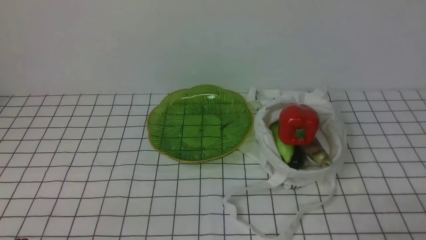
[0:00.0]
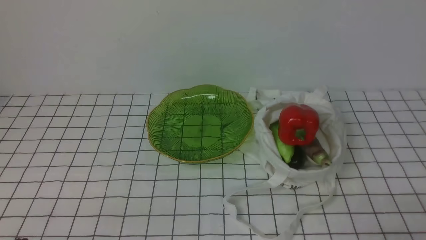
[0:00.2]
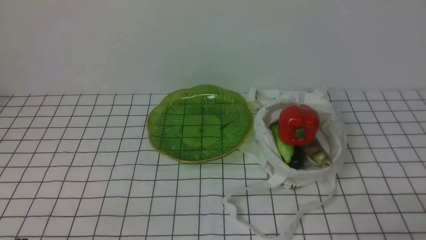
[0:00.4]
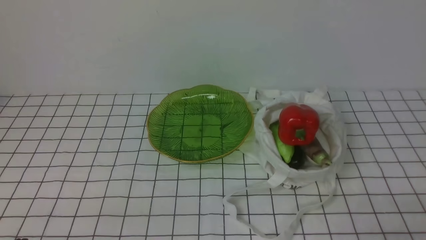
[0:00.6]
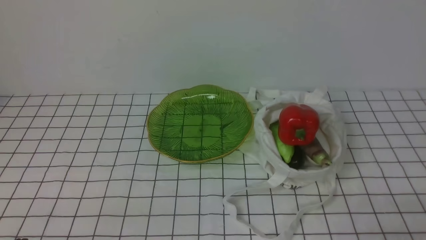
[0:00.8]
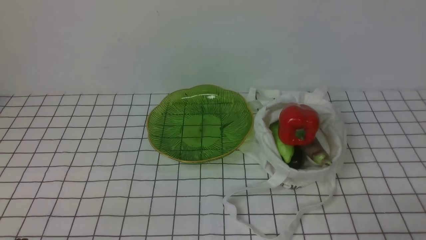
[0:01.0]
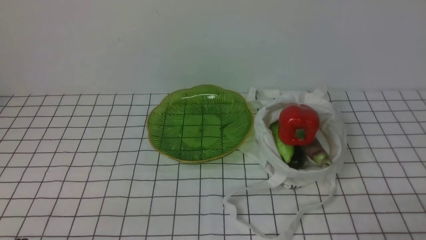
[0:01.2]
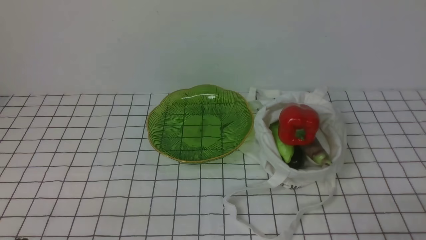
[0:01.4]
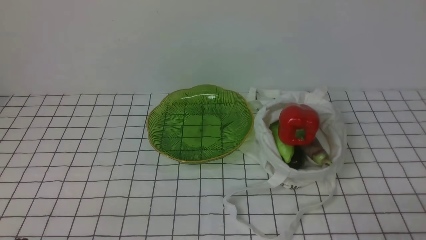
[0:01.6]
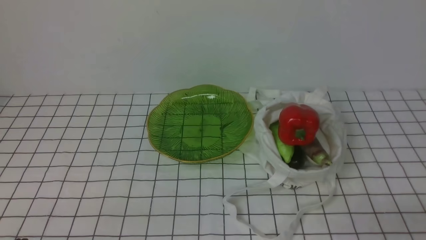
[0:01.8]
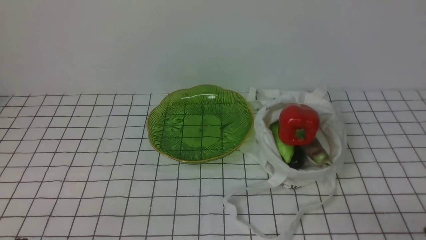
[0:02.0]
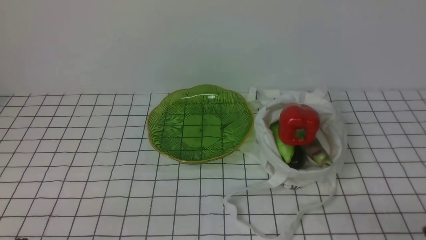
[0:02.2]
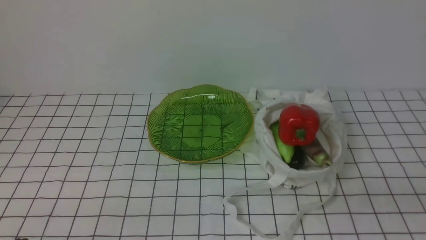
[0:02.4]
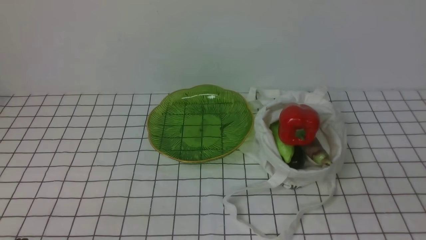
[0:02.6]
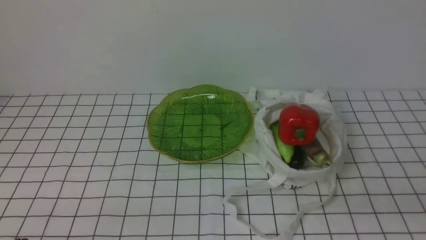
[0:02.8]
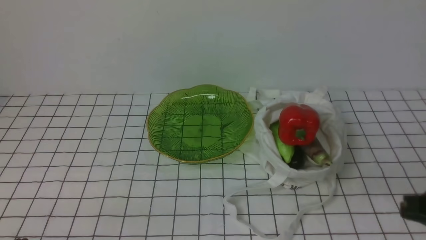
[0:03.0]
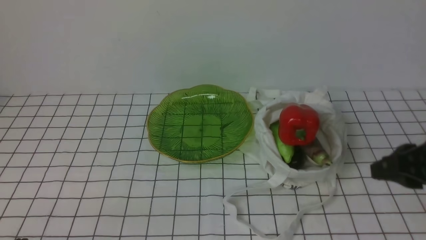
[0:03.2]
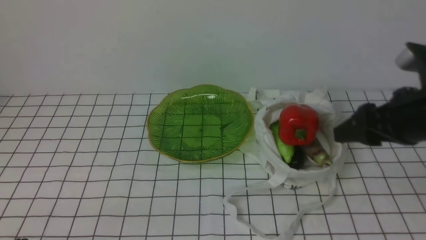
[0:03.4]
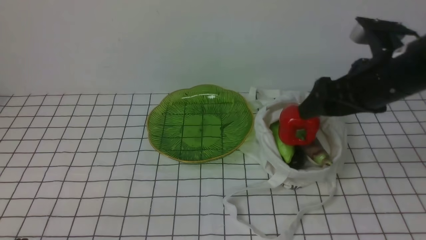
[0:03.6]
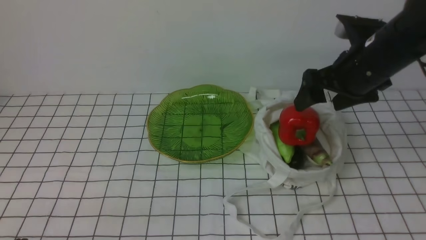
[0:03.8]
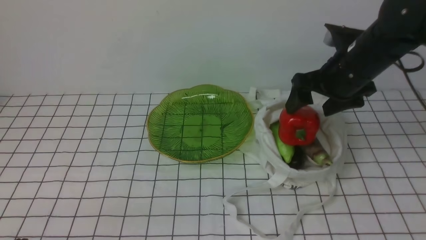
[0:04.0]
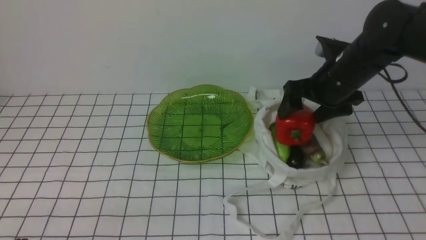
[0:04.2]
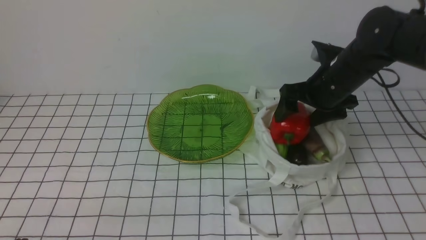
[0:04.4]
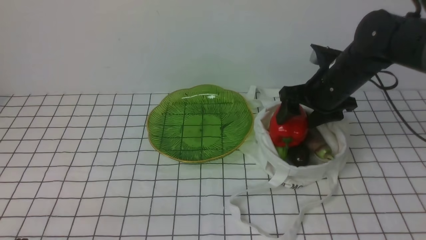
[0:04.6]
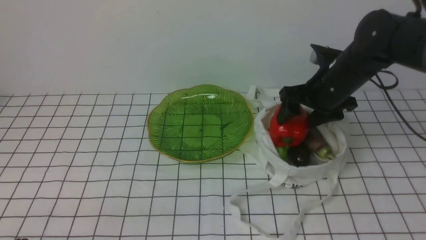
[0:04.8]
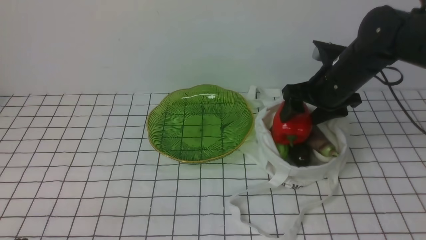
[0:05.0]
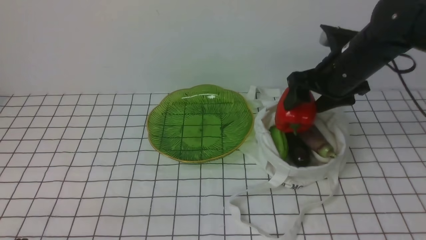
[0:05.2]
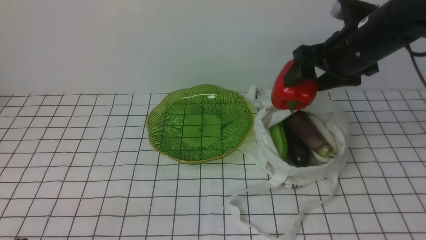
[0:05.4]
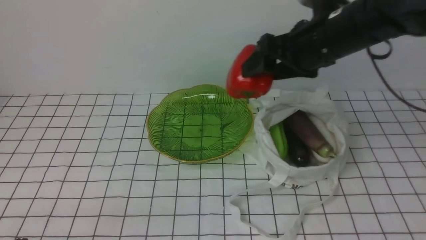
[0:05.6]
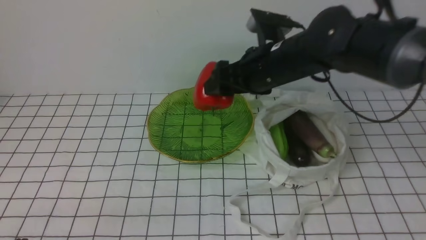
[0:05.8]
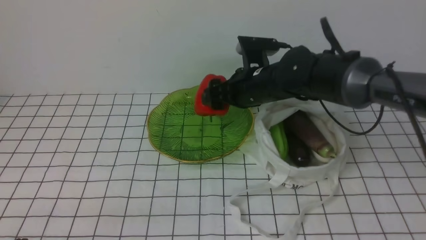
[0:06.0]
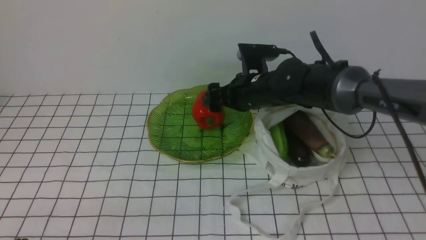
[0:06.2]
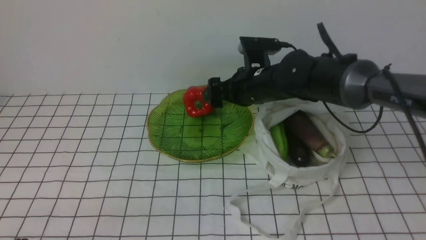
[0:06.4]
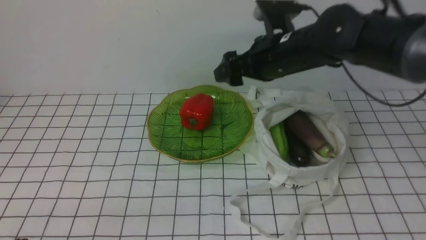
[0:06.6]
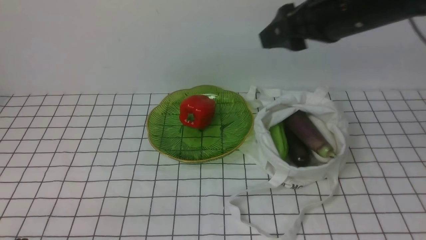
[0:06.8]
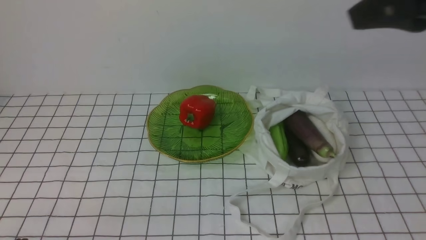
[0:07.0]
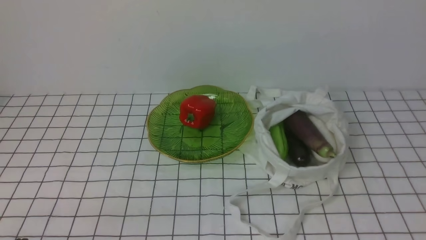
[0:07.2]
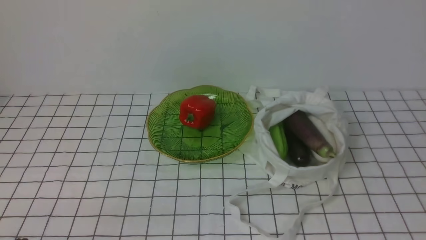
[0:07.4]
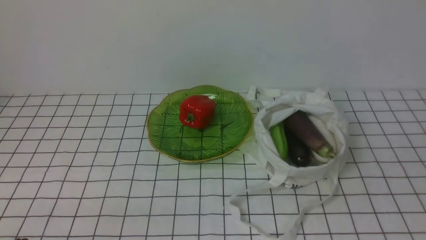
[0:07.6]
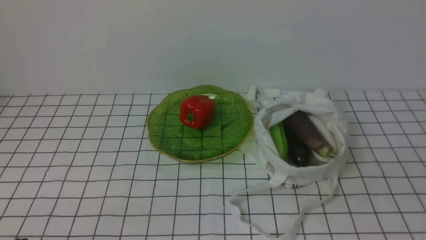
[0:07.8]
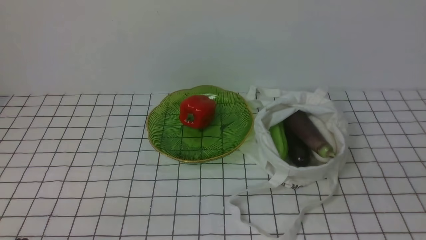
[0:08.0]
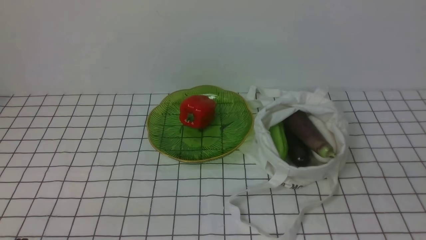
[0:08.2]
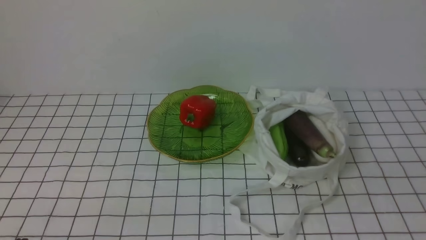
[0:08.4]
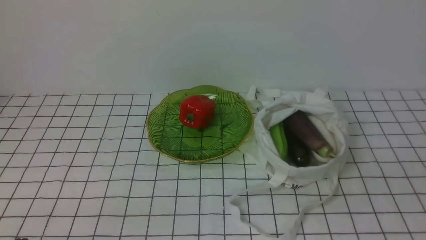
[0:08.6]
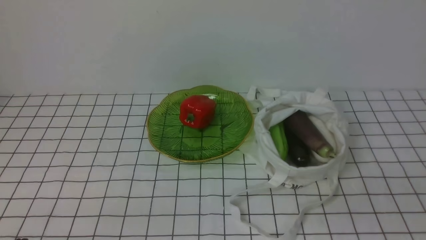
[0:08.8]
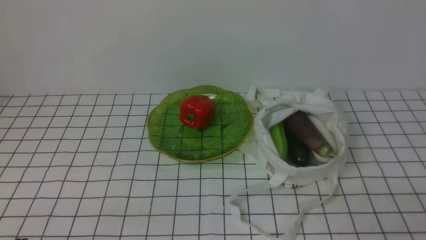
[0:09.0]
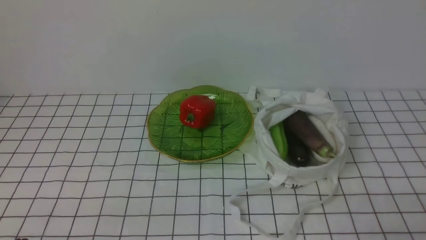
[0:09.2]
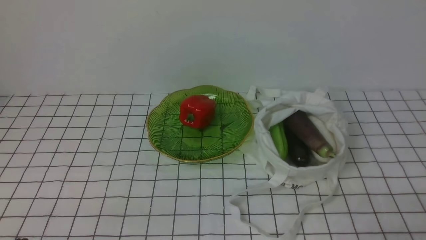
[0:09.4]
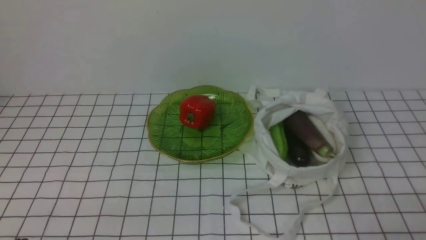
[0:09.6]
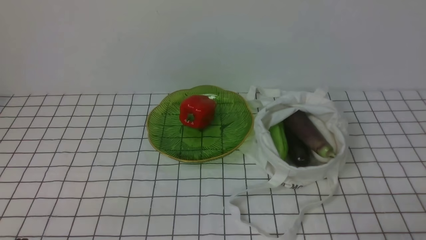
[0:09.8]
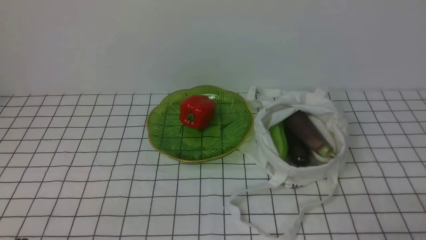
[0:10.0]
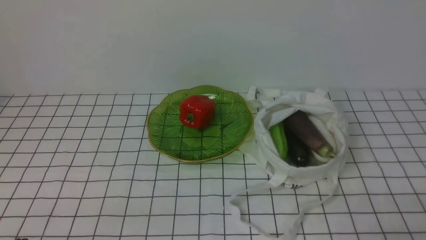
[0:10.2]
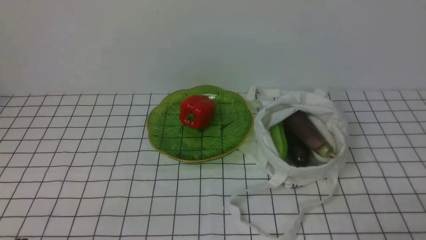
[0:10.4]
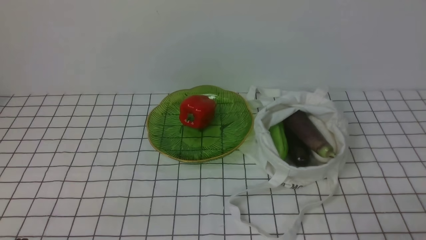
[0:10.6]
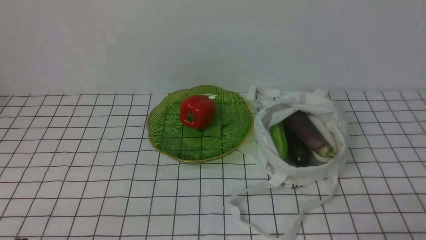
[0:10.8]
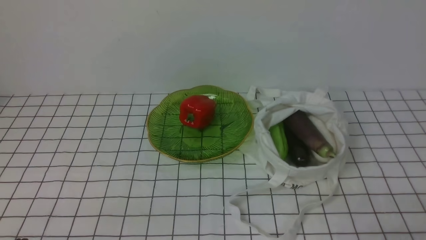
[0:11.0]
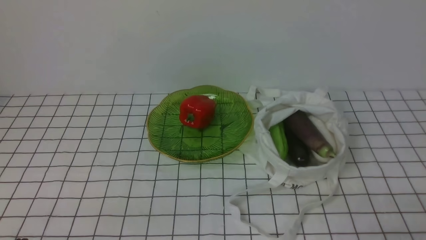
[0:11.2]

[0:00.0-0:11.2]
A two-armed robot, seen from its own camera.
Task of the whole recording: take vegetables from bag on white checkered tablecloth place on plate.
Step, 0:00.0 to 0:04.8: Grasp the bell pepper with right gripper.
Step, 0:05.0 to 0:06.6: Place the bell pepper on the plate with right gripper.
0:01.6 to 0:03.2: The right gripper travels forward and upward by approximately 20 cm.
0:03.2 to 0:04.8: The right gripper moves forward, approximately 20 cm, and opens up.
0:04.8 to 0:06.4: The right gripper shifts about 10 cm to the left.
0:06.4 to 0:08.0: The right gripper goes about 40 cm backward and to the right, and closes up.
0:09.6 to 0:11.2: Both grippers stay put.
